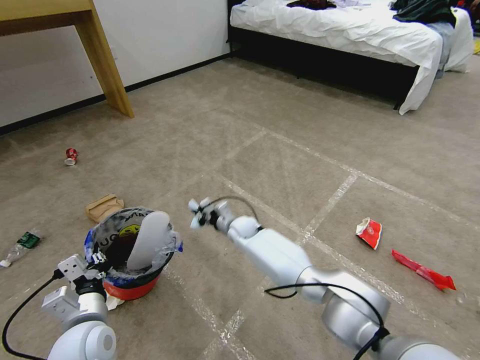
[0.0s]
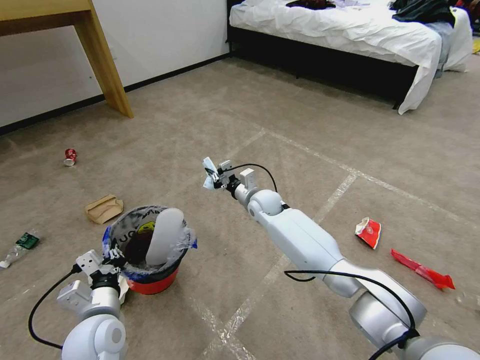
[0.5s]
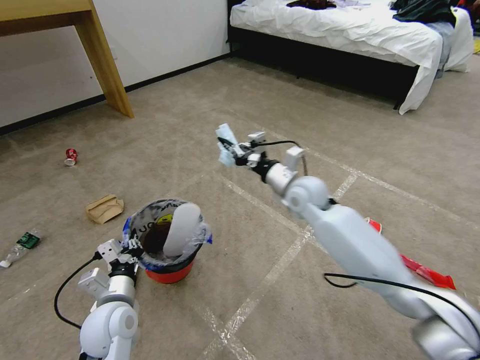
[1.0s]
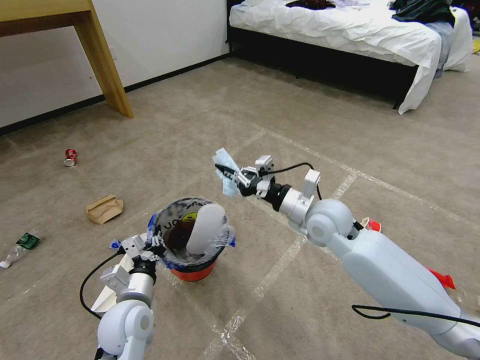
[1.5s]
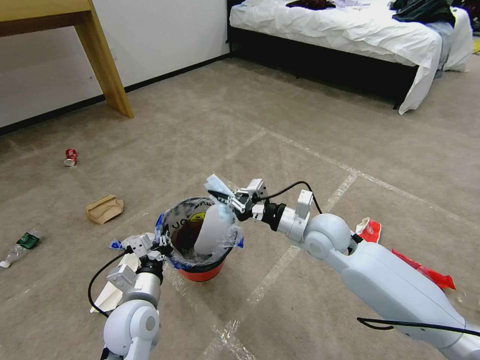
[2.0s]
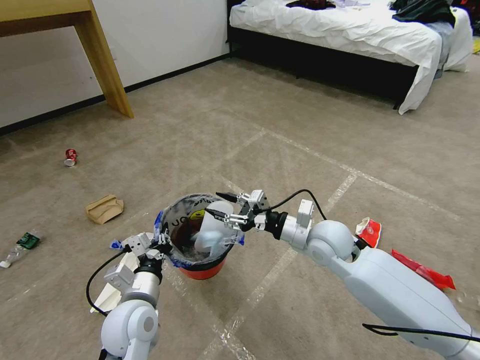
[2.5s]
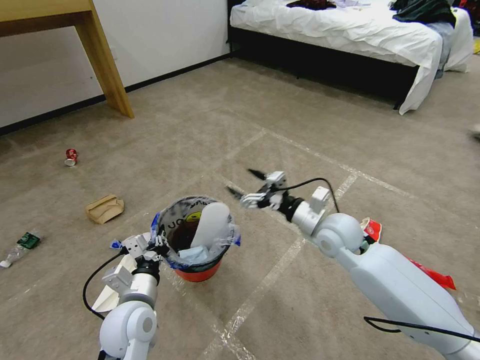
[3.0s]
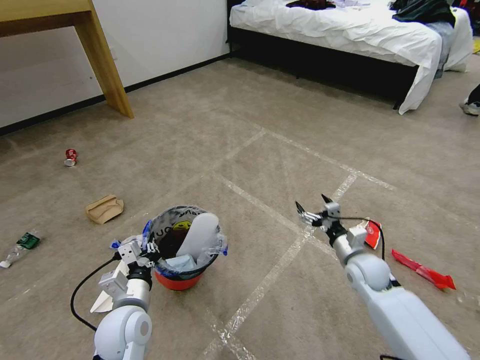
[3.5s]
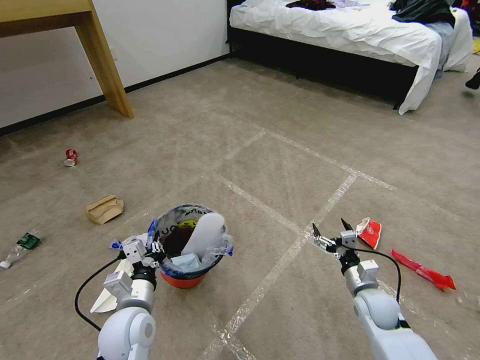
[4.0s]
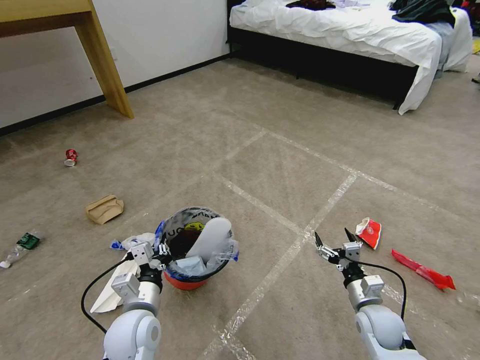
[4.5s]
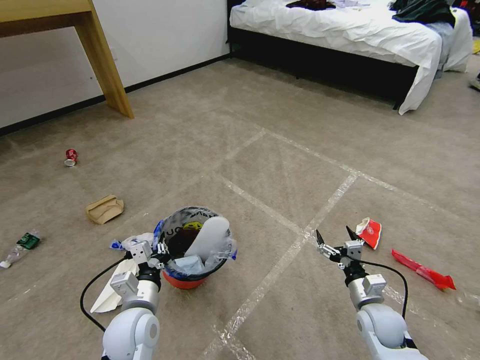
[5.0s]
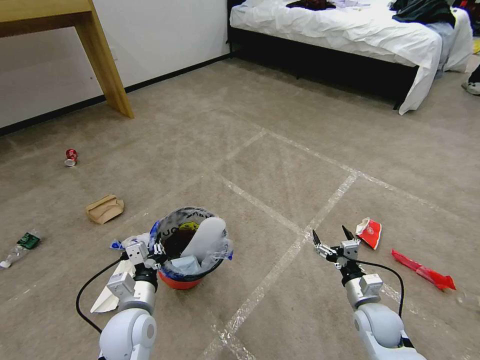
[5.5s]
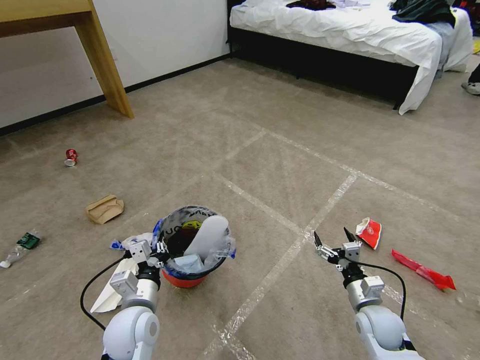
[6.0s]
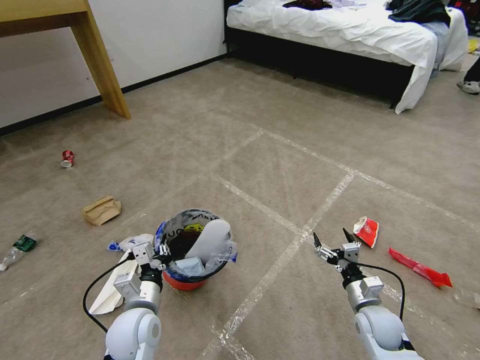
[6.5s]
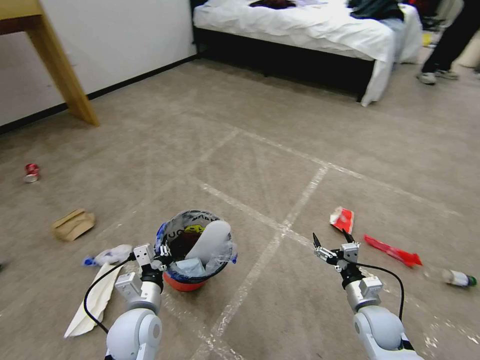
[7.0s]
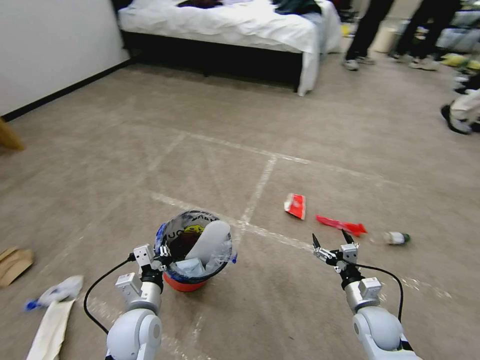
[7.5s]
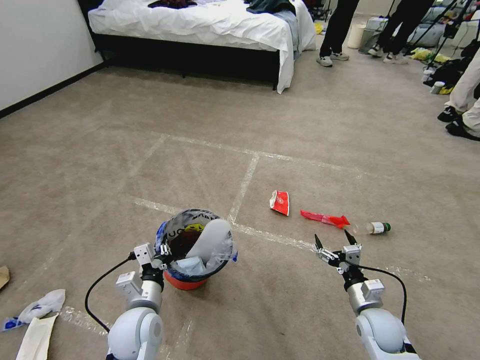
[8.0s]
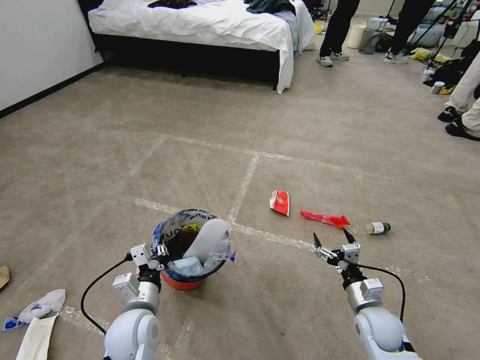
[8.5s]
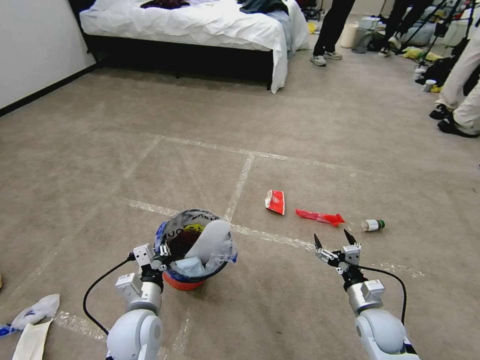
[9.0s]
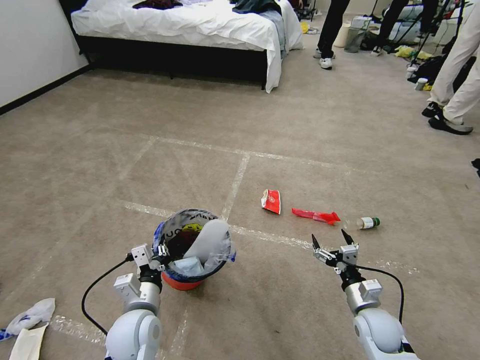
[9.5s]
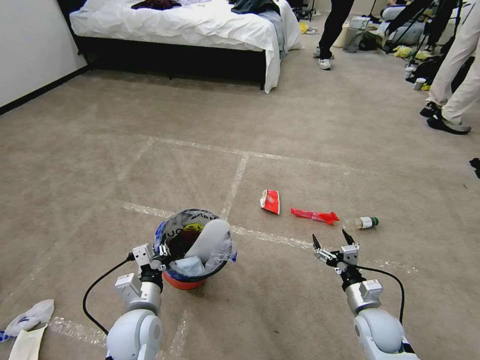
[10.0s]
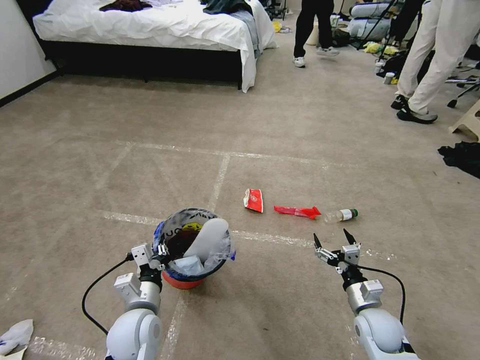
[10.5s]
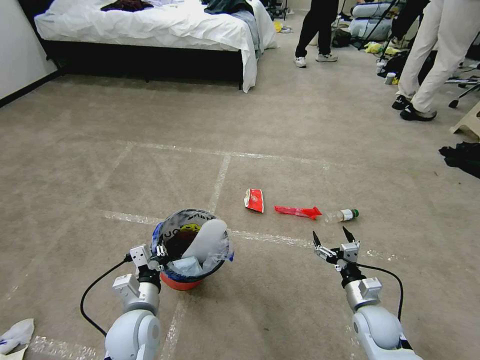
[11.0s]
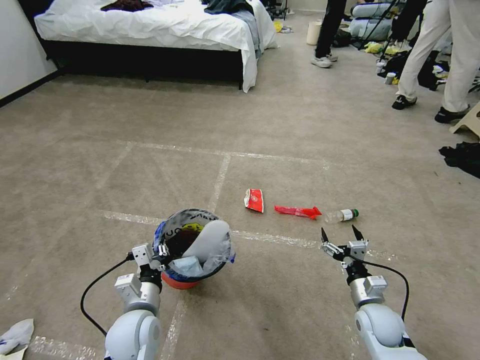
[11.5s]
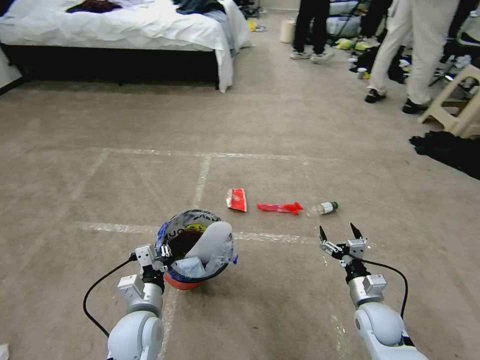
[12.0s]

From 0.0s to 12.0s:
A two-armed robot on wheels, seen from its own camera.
Task of the whole recording: Pick up the trash bin and place the garbage on the floor into it.
From 0.0s to 2.0s: The left gripper travels to the right by approximately 5 cm, while the right gripper heads to the right, upward and backward, covering about 25 cm.
From 2.0s to 4.0s: The right gripper heads downward, to the right and backward, covering roughly 25 cm, and opens up.
From 4.0s to 6.0s: The grippers stay close to where they were, moving slightly.
From 8.0s to 10.0s: Neither gripper changes place.

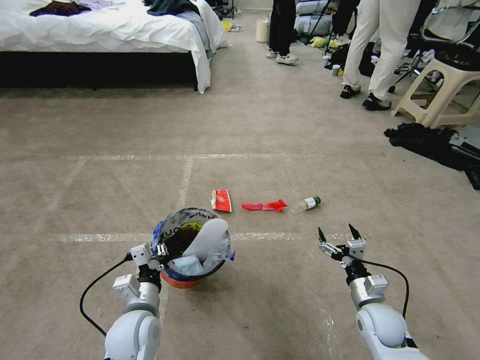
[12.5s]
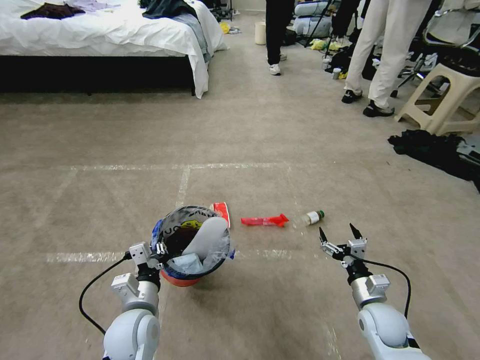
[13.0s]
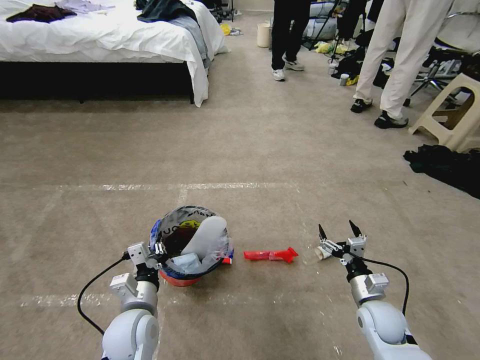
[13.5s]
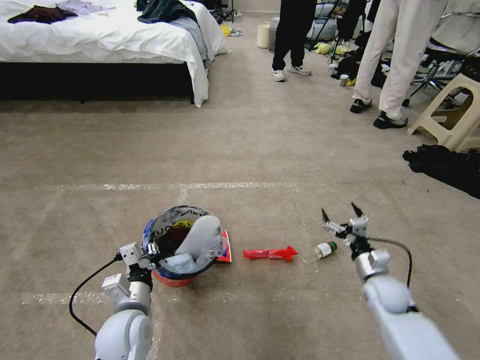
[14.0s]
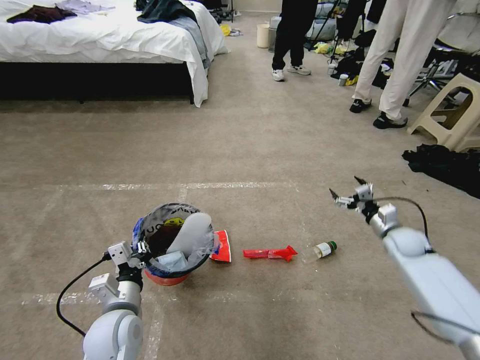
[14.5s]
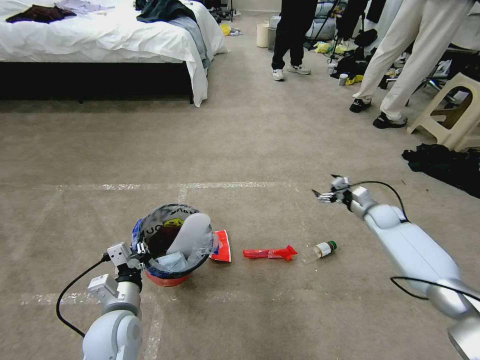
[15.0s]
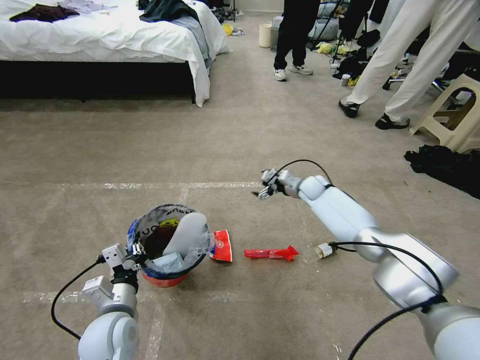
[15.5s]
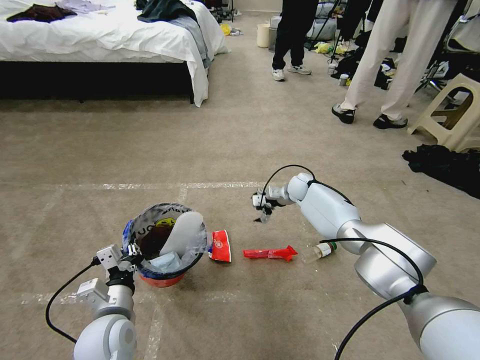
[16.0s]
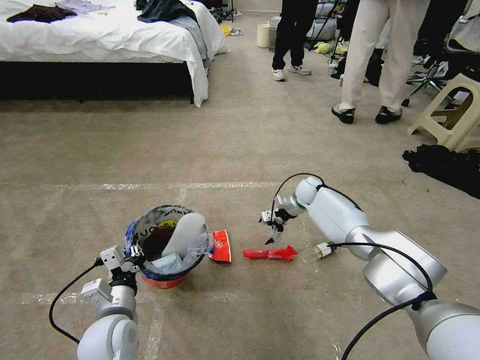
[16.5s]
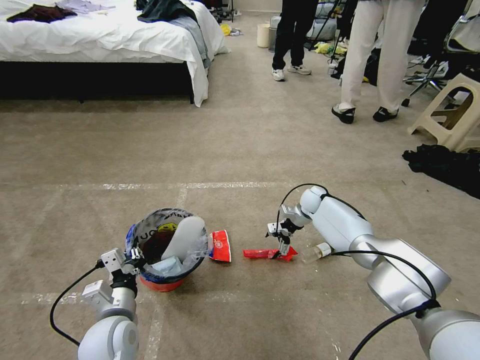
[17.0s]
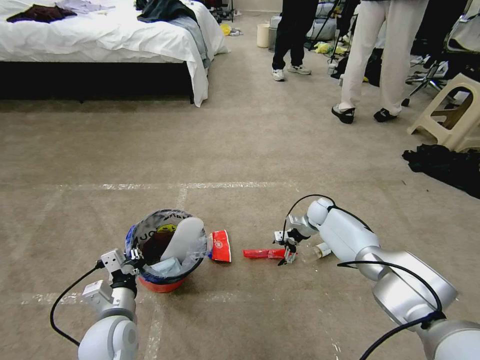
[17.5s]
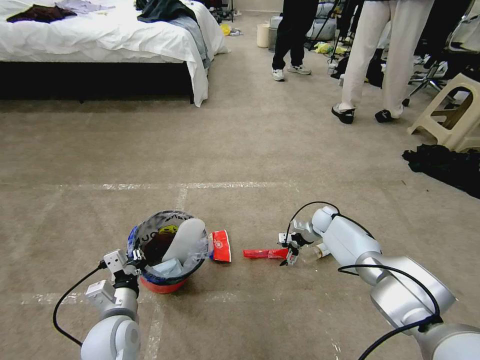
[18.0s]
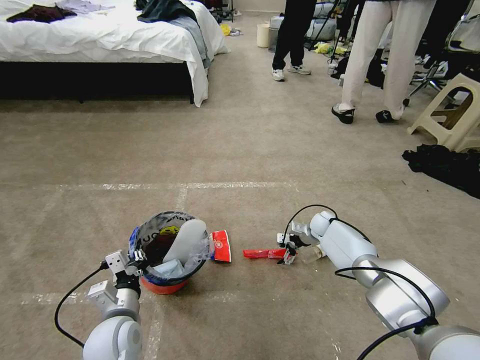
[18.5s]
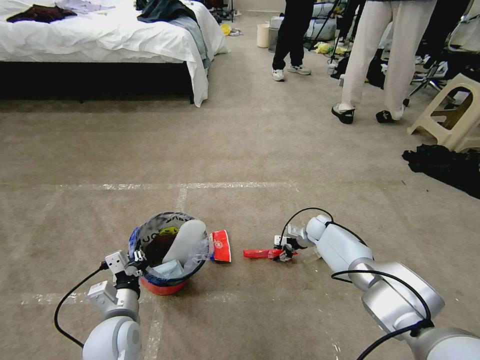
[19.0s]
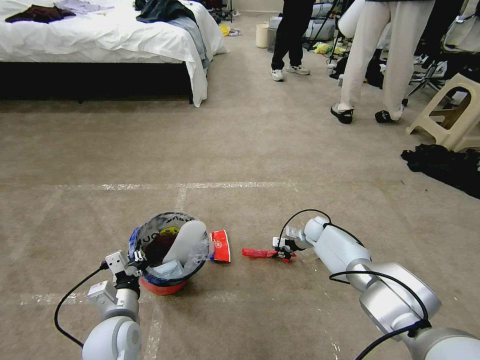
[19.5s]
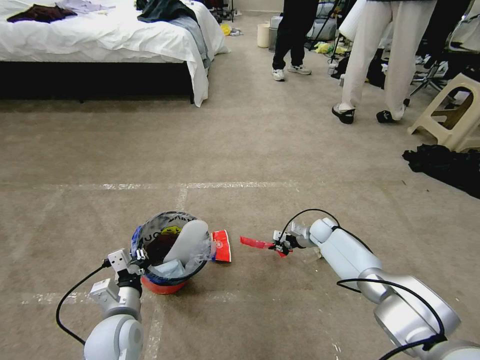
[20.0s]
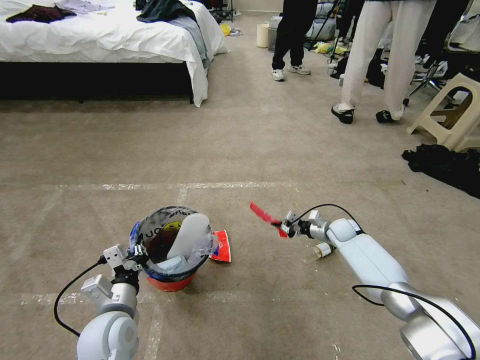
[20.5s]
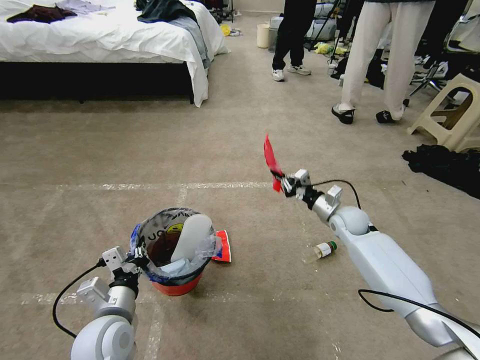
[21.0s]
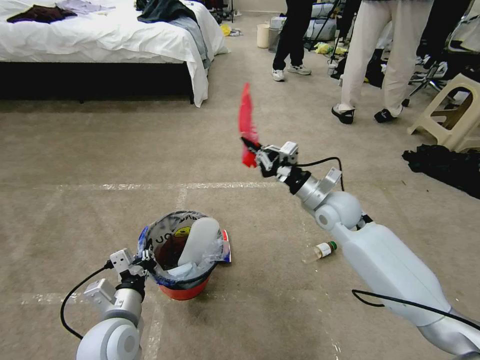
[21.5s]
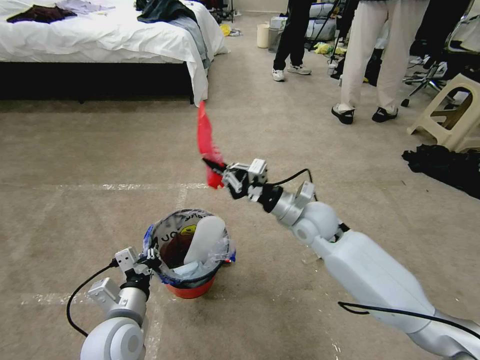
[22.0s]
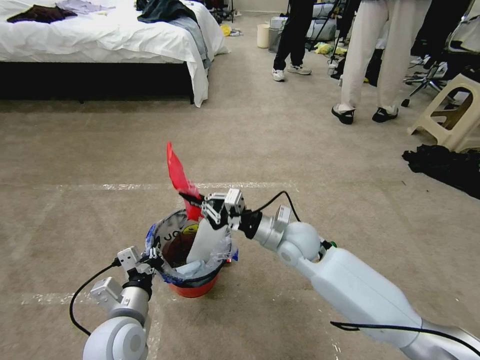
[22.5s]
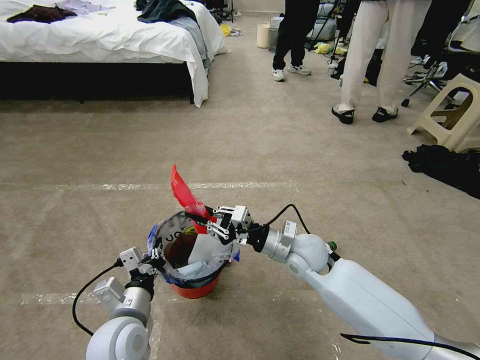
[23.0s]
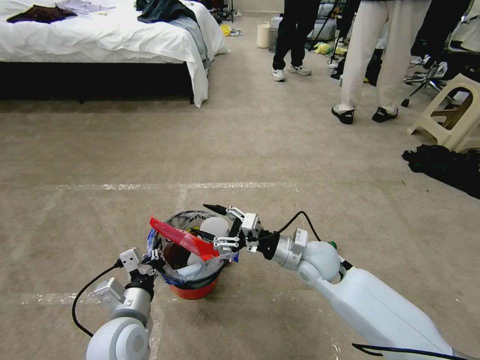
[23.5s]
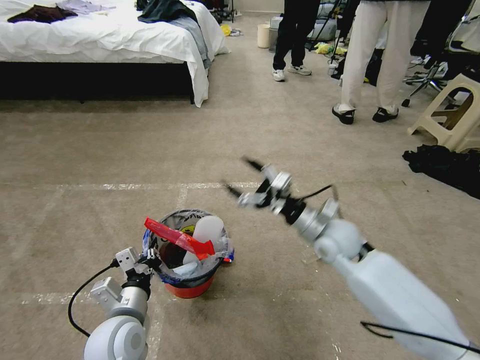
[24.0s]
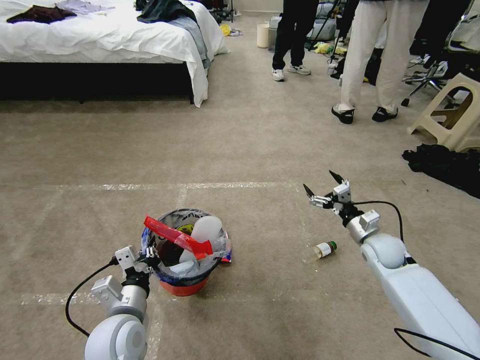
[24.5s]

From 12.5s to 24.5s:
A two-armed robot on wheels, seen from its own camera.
Task of the whole recording: Pick up the trash bin and place the garbage on the floor into it.
From 12.5s to 14.5s: The right gripper shifts some 20 cm forward and to the right.
From 14.5s to 16.5s: The right gripper is displaced to the left and forward by roughly 30 cm.
From 16.5s to 18.5s: The right gripper shifts about 15 cm downward, backward and to the right.
From 18.5s to 20.5s: The right gripper shifts by some 5 cm, and closes.
From 20.5s to 22.5s: The right gripper shifts roughly 30 cm to the left, upward and backward.
From 22.5s to 24.5s: The right gripper travels to the right by roughly 25 cm, and opens up.

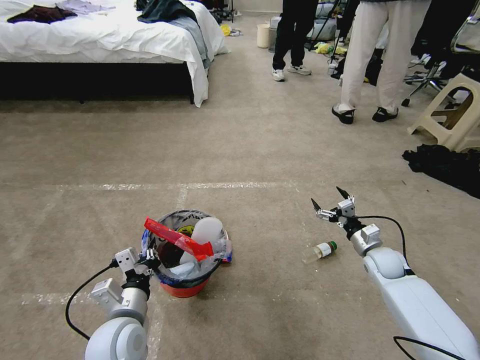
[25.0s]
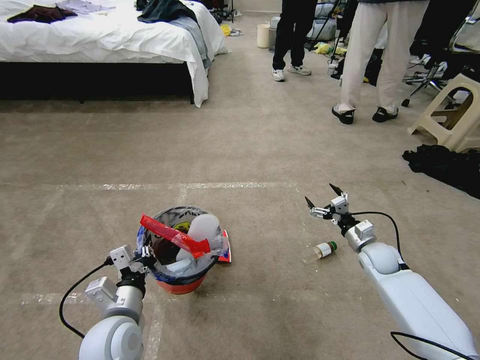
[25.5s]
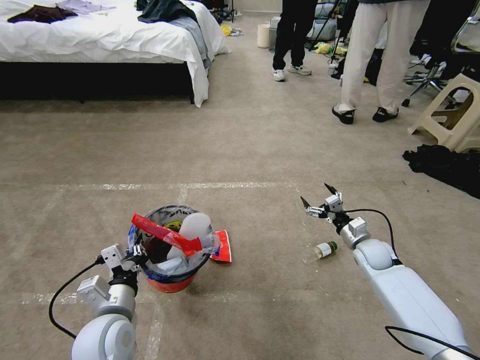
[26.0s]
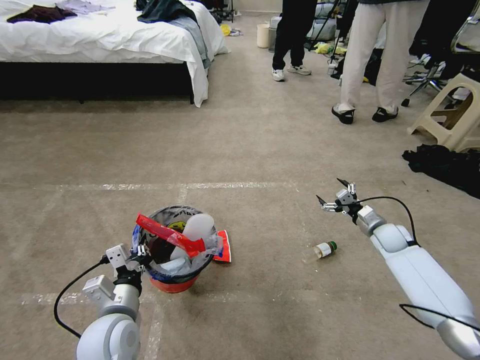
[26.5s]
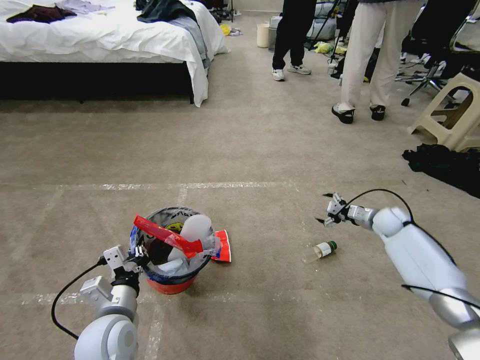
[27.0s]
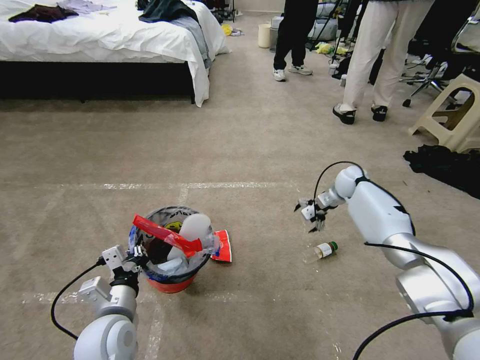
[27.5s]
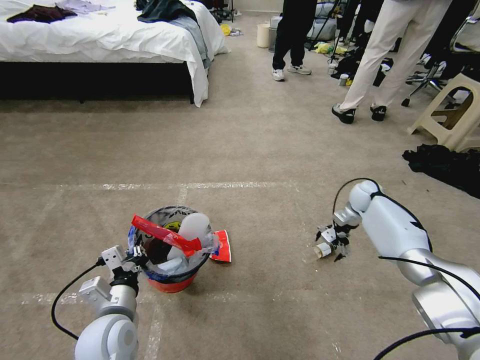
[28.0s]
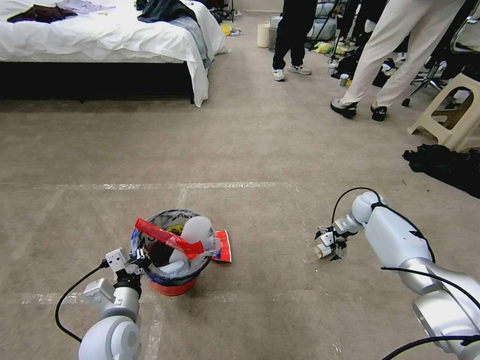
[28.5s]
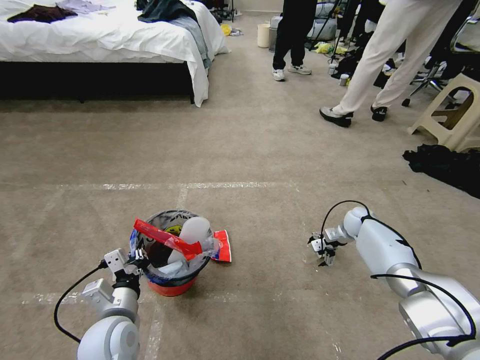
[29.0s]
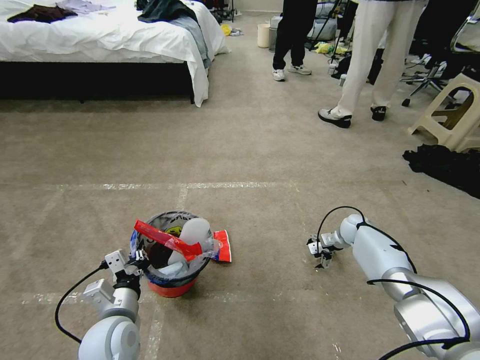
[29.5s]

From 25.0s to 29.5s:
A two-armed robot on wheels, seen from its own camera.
Task of the whole recording: Pick up the trash bin and place the garbage on the floor into it.
From 25.0s to 27.0s: The right gripper heads forward and to the right, covering some 10 cm.
From 27.0s to 29.5s: The right gripper goes about 10 cm downward and to the left.
